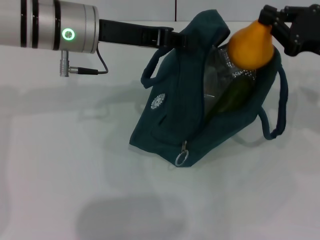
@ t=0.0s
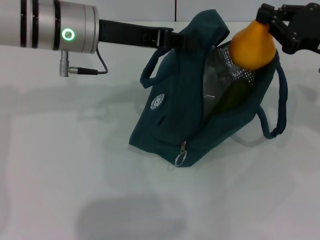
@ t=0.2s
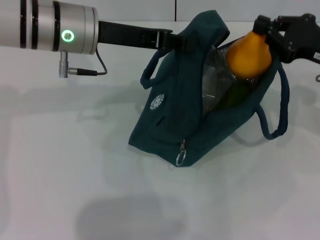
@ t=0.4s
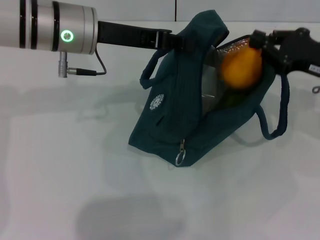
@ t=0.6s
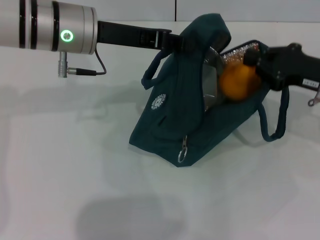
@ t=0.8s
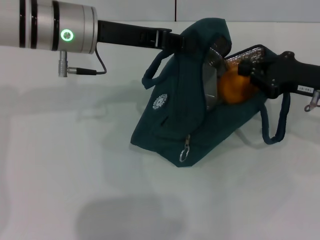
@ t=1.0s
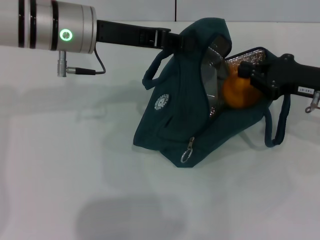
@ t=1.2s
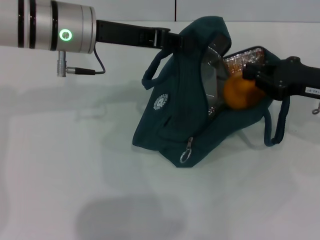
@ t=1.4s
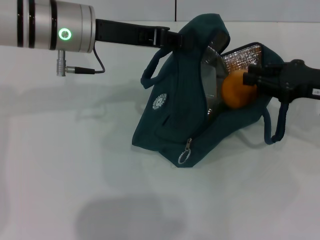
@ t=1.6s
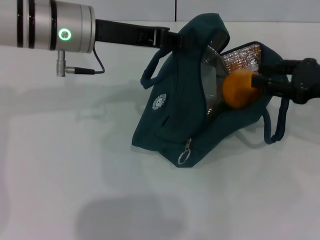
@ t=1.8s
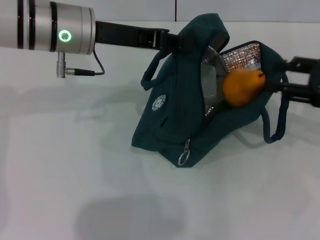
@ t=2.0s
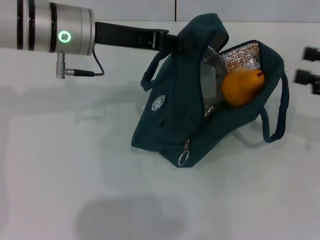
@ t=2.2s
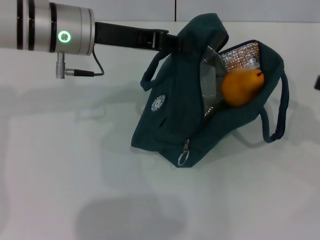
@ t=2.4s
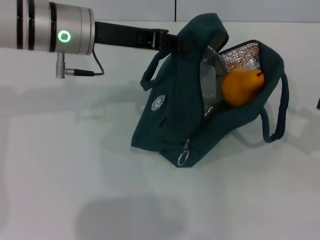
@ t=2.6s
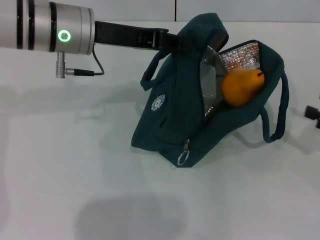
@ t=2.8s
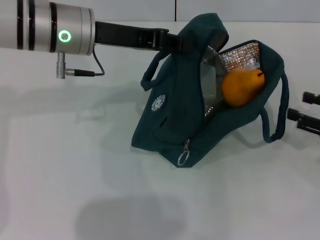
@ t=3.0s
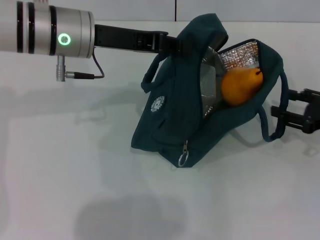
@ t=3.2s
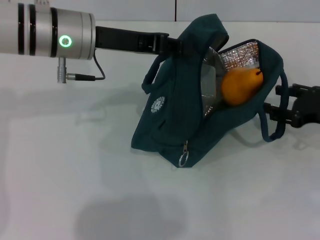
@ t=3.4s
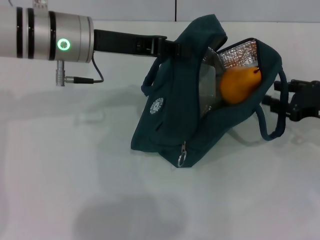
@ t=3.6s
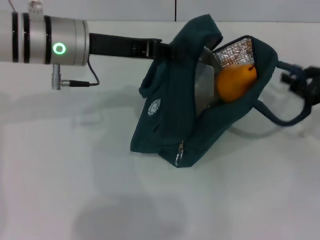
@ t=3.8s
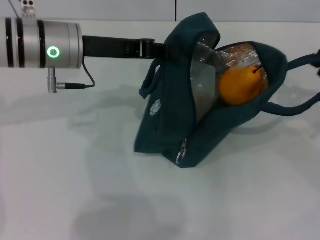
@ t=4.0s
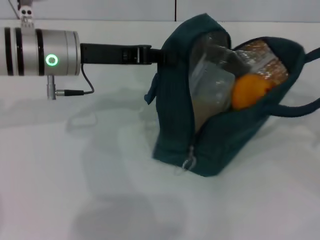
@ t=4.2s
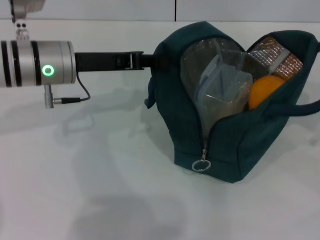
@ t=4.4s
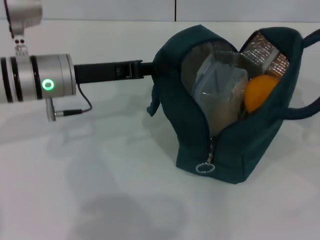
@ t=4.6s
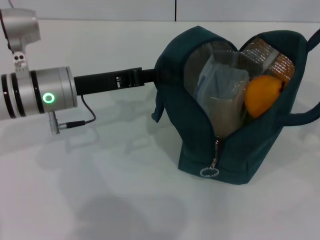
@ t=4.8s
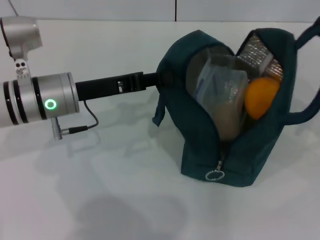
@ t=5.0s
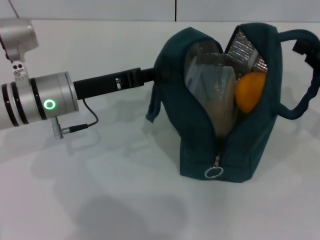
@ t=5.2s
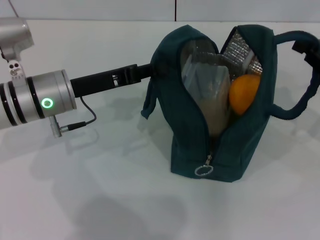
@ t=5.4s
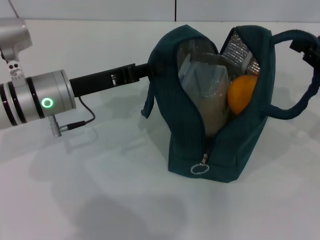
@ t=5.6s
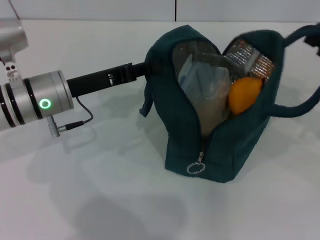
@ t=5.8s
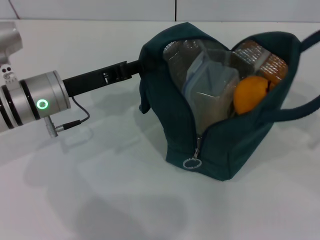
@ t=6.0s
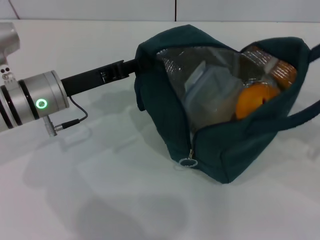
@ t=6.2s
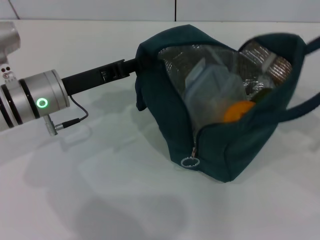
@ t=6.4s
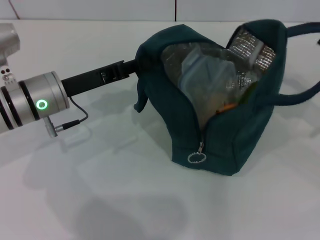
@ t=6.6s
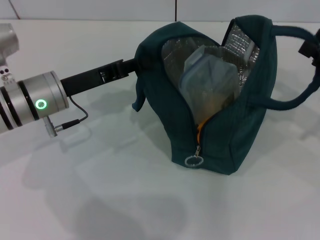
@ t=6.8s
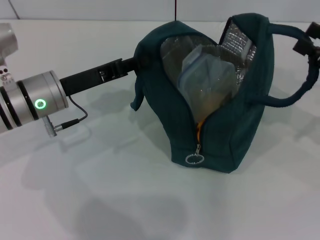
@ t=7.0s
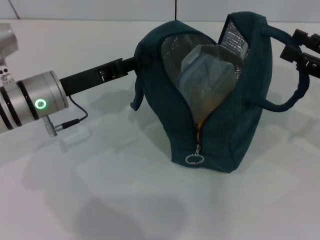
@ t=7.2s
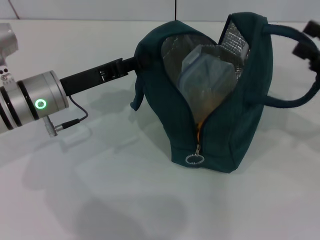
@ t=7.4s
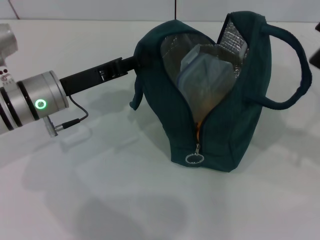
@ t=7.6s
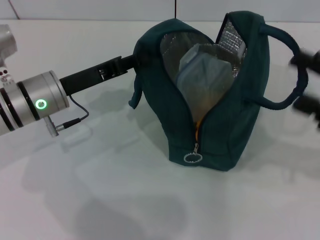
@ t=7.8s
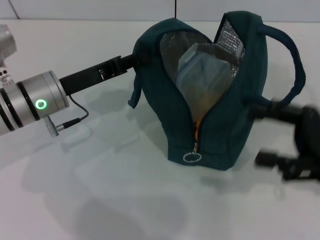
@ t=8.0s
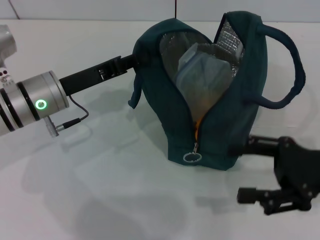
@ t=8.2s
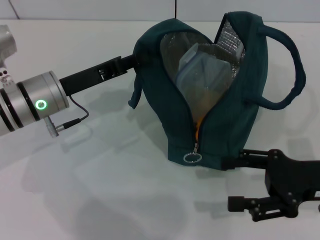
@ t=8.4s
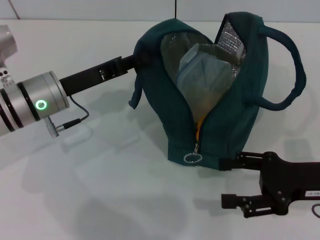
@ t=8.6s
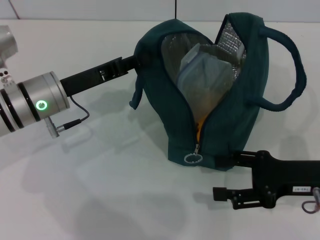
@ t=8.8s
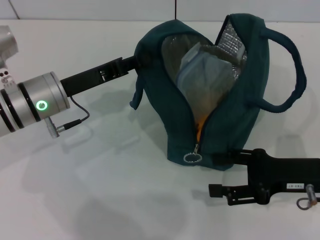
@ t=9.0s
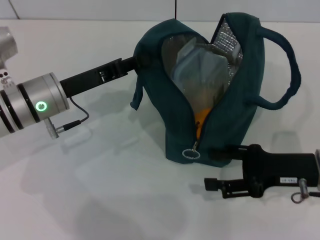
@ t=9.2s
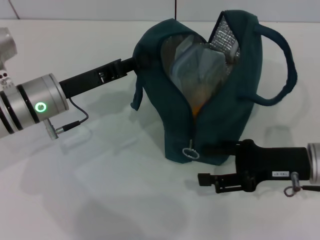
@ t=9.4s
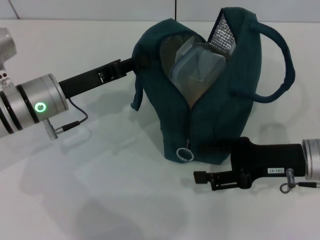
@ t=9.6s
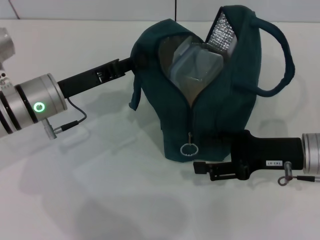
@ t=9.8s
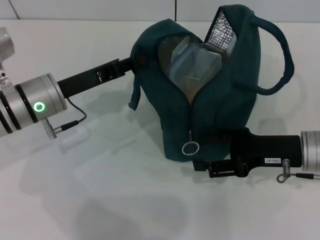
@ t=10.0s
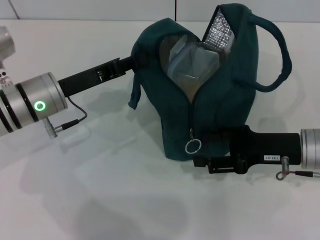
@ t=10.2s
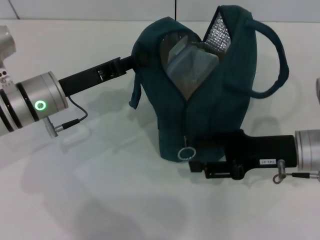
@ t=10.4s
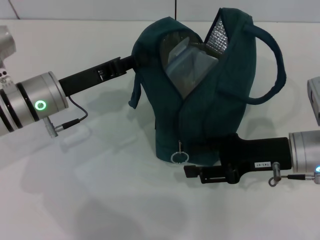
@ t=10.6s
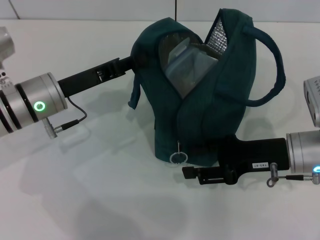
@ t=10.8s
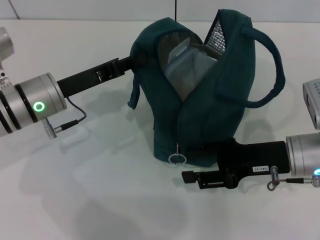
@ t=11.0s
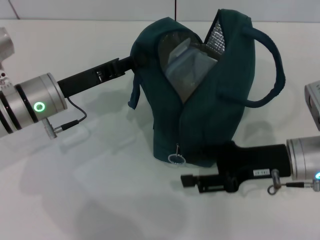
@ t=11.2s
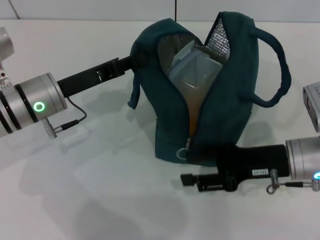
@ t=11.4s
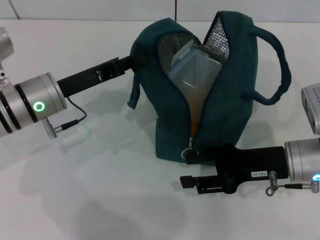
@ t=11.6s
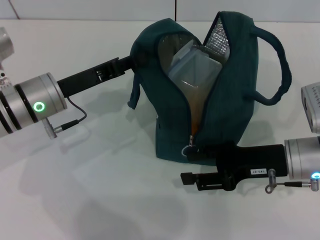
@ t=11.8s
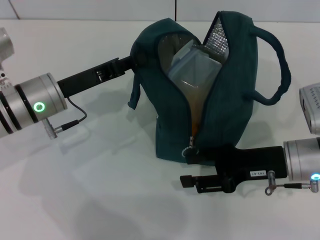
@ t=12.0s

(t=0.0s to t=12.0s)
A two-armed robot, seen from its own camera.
Step, t=1.8s - t=6.8s: Hold the lunch bag with your right hand.
t=1.6s - t=3.0s: The right gripper goes approximately 10 cm to the right, downward and backward, and opens its fingers.
t=3.0s - t=4.4s: The right gripper shifts roughly 5 cm upward, and closes its fingers. The left gripper moves some 5 cm.
t=4.4s - t=6.0s: The left gripper shifts by about 5 cm.
t=6.0s - t=7.6s: The right gripper opens its fingers.
t=7.6s - t=9.0s: The right gripper heads to the left and downward, covering roughly 10 cm.
t=10.4s - t=12.0s: There are only small adjustments of the grippers.

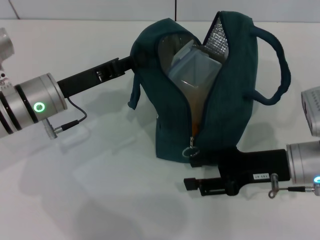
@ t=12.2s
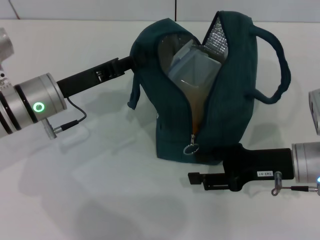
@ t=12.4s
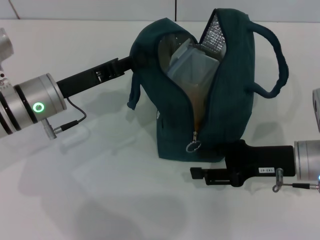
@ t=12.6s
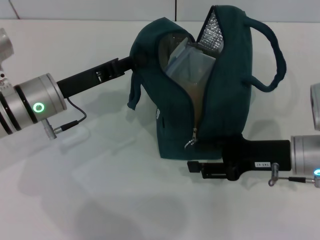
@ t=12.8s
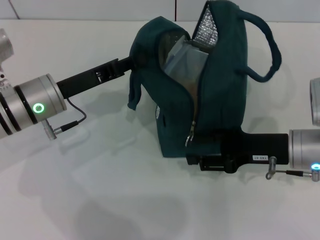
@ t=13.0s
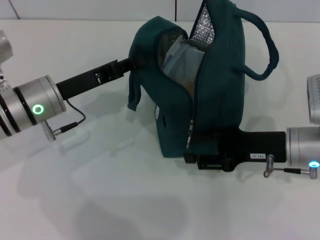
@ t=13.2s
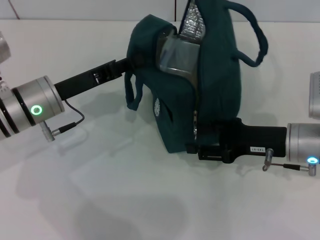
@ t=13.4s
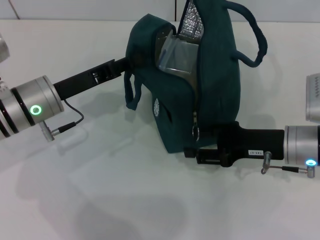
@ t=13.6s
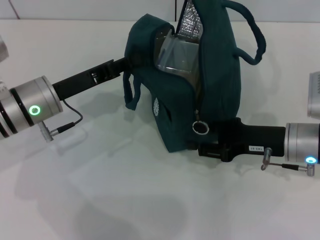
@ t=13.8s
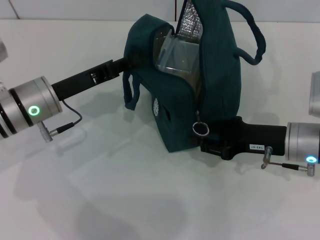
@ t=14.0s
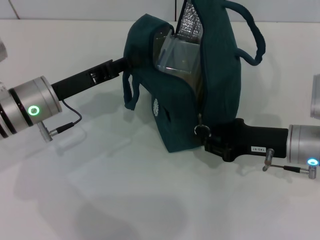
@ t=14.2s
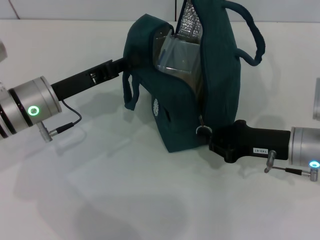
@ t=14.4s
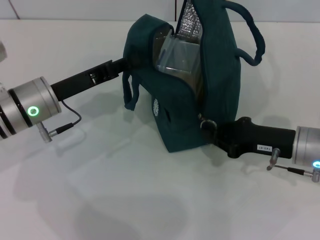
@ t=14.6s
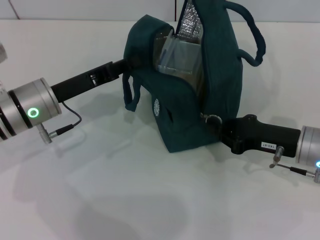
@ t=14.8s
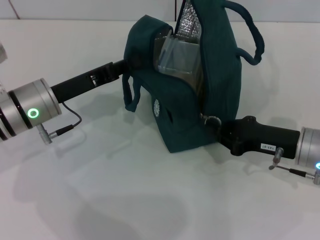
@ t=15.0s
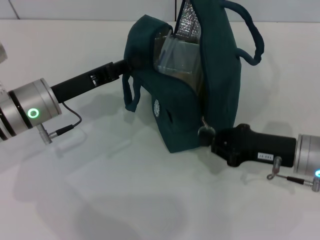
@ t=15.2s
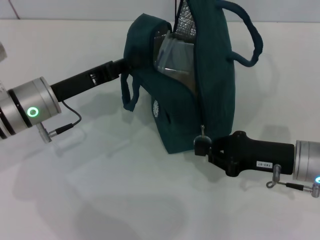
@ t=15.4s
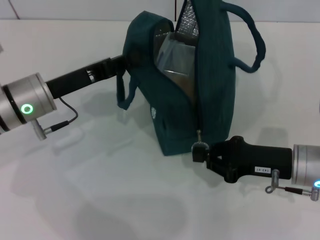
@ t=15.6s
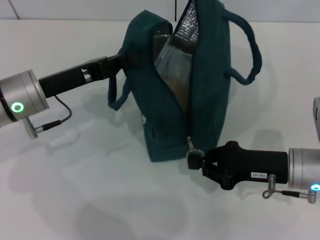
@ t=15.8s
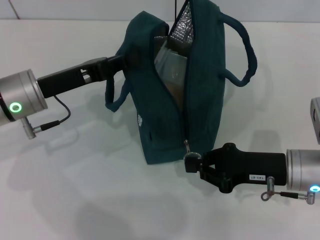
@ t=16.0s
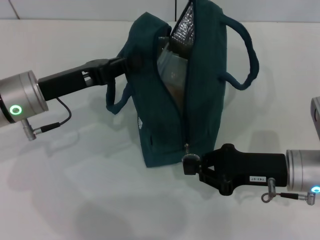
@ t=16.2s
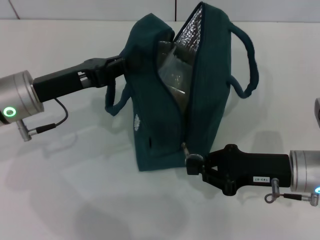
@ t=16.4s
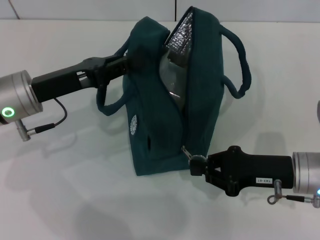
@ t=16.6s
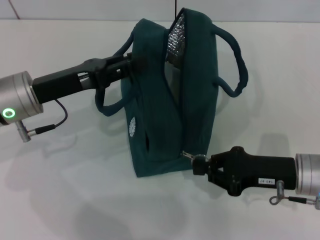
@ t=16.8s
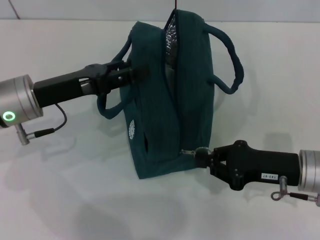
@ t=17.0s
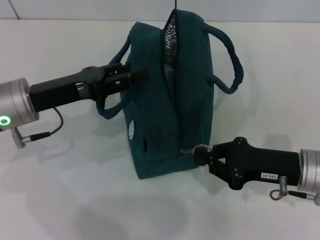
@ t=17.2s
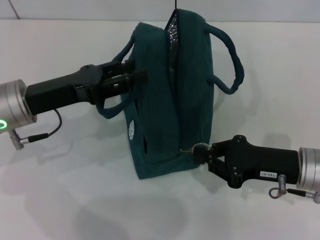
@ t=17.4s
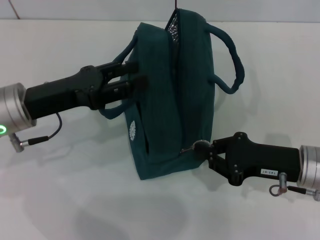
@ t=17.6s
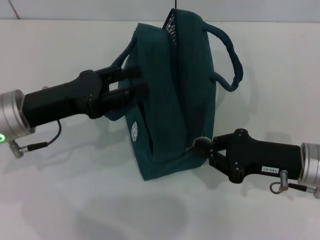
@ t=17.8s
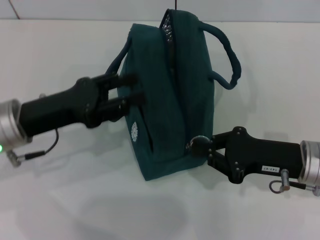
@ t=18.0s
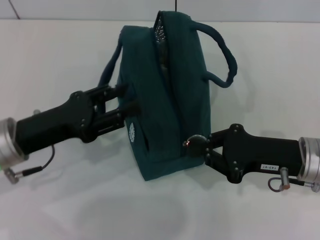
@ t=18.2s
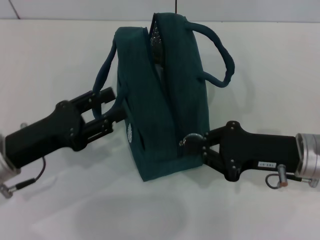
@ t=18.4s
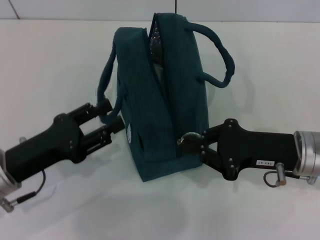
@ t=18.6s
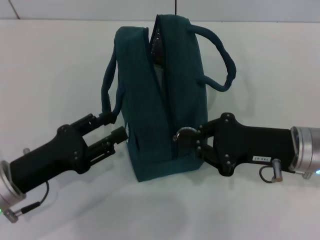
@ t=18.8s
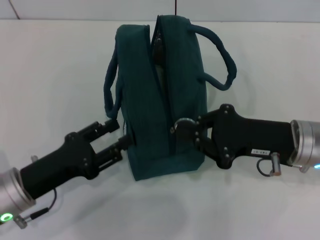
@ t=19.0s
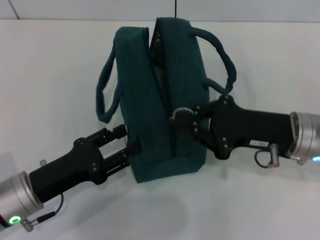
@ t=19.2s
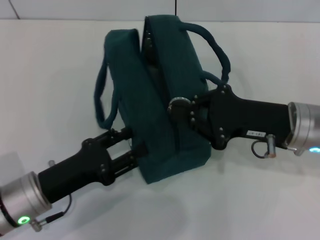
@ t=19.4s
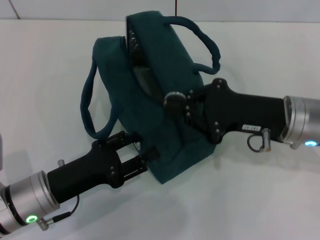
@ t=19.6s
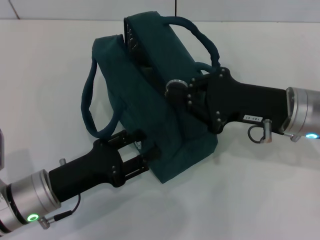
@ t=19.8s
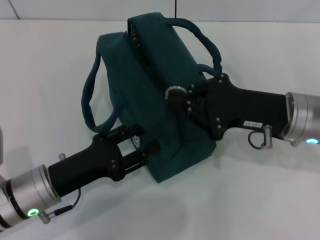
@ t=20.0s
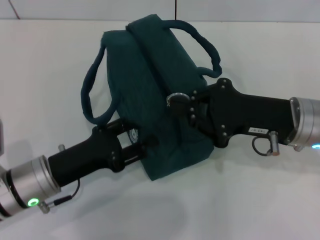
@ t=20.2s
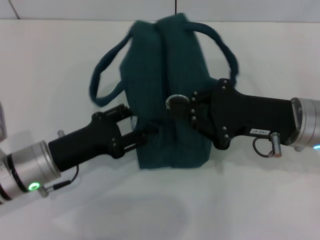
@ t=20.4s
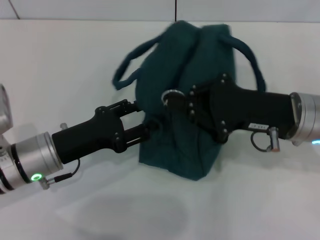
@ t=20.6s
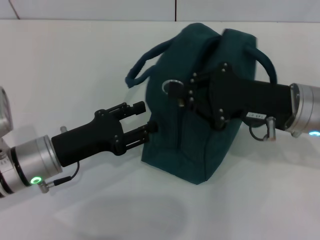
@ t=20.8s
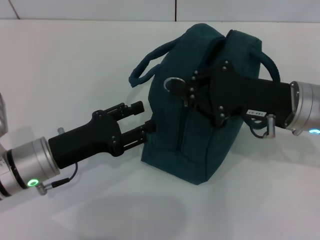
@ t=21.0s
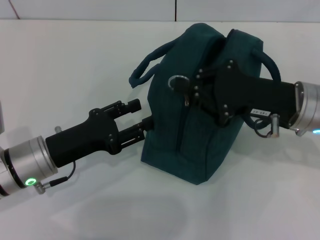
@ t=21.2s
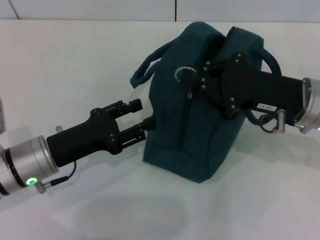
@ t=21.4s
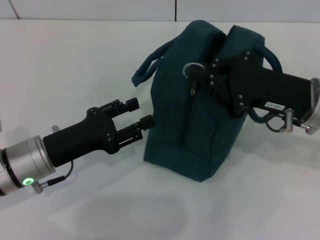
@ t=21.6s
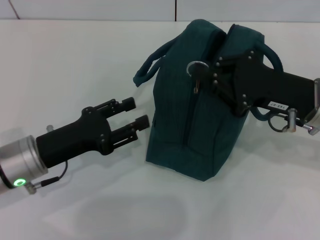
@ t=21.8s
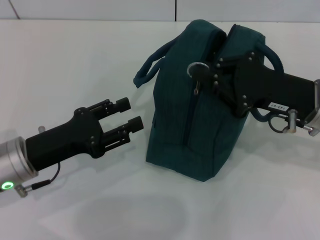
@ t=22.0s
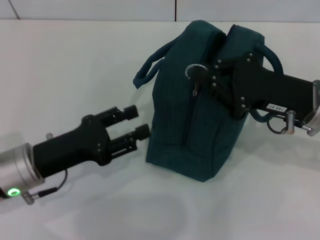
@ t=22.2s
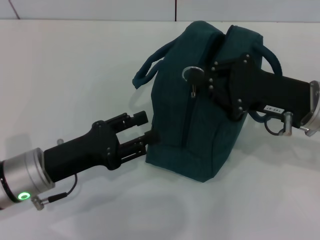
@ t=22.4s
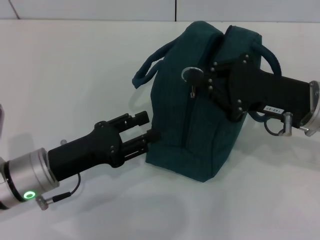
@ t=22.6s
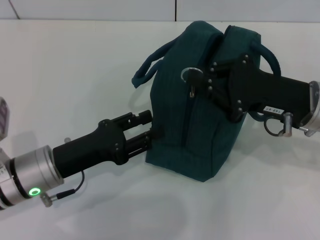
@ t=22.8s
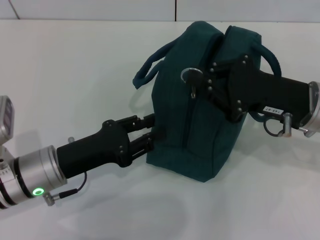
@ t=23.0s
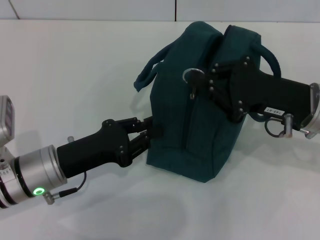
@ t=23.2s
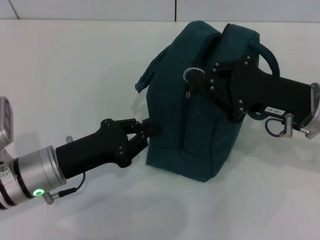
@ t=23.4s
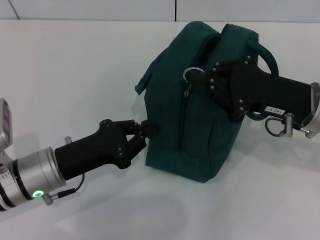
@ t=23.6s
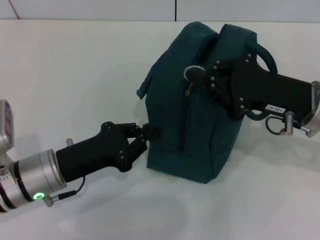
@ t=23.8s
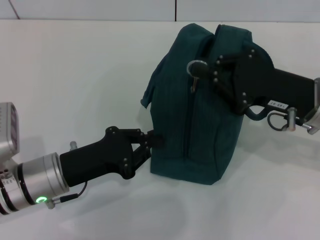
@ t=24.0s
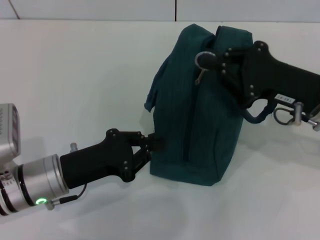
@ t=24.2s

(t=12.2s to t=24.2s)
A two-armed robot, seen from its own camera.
Step, t=12.2s - t=16.8s: Hold the lunch bag with your left hand.
t=13.8s - t=15.2s: The right gripper closes up.
t=16.6s - t=18.2s: The left gripper is displaced backward by some 5 cm, and opens up.
t=18.2s - t=19.8s: The right gripper shifts by roughly 5 cm; the left gripper goes some 5 cm downward.
t=21.2s - t=22.6s: The grippers stay close to where they were, moving slightly.
t=22.6s - t=24.2s: The left gripper closes up.
